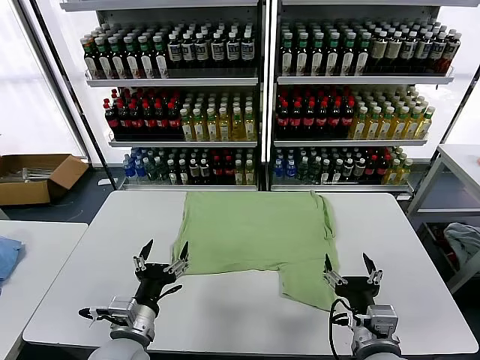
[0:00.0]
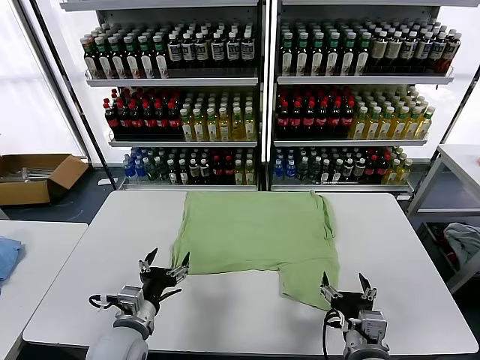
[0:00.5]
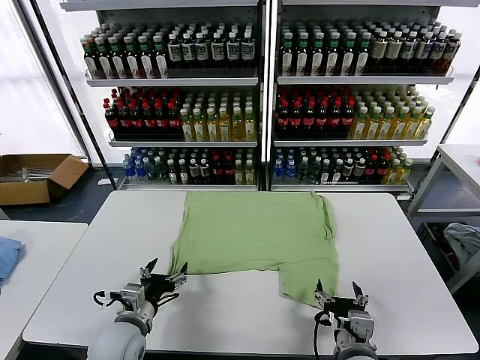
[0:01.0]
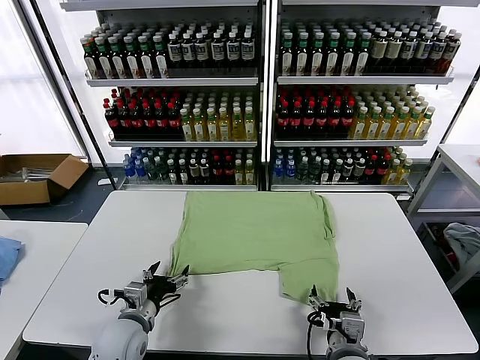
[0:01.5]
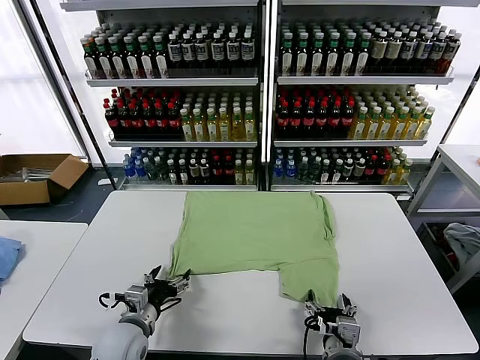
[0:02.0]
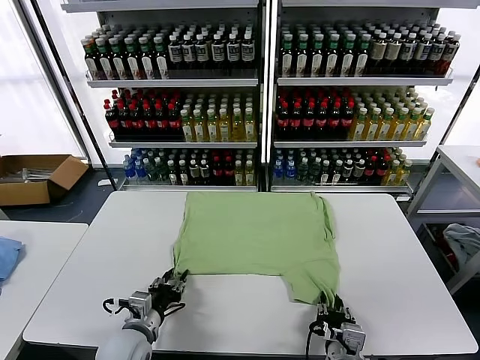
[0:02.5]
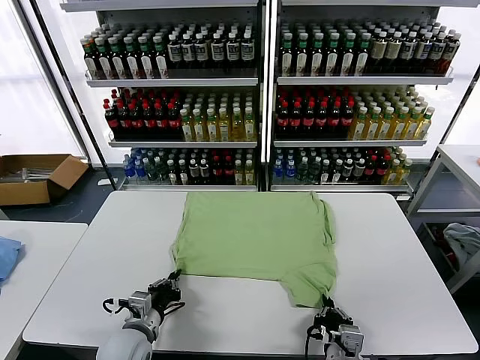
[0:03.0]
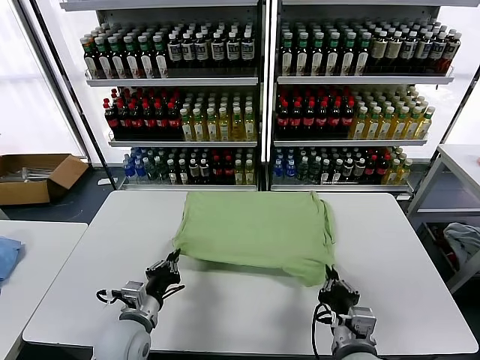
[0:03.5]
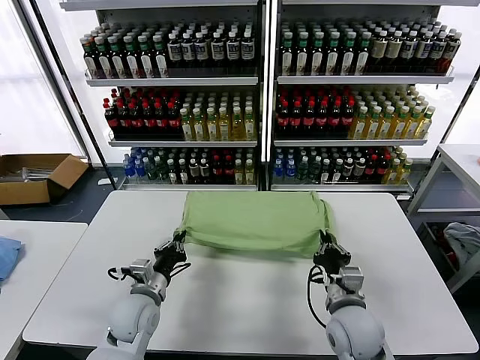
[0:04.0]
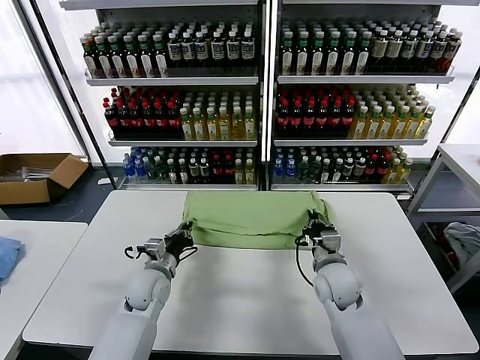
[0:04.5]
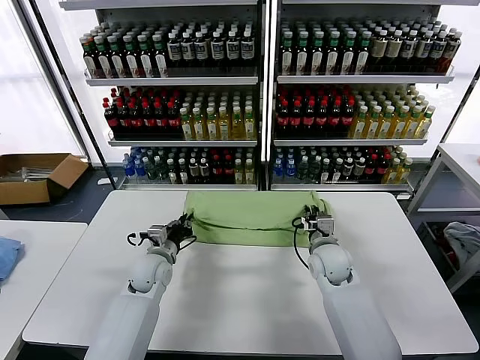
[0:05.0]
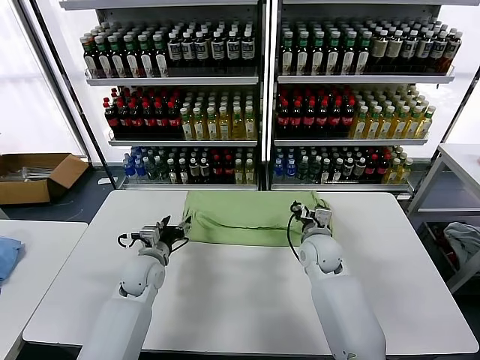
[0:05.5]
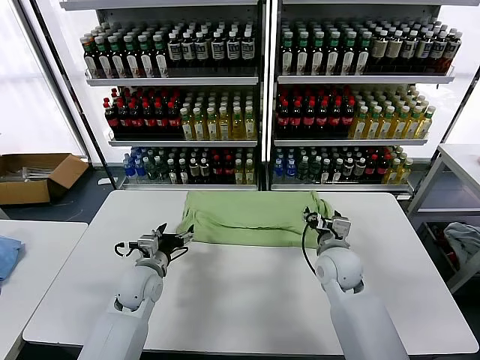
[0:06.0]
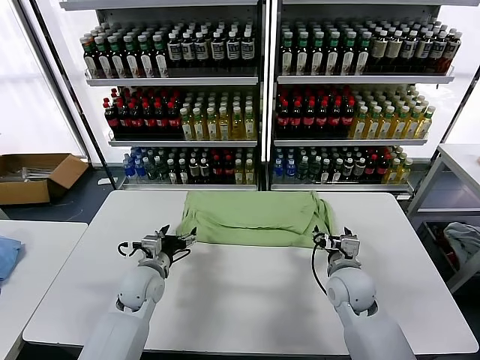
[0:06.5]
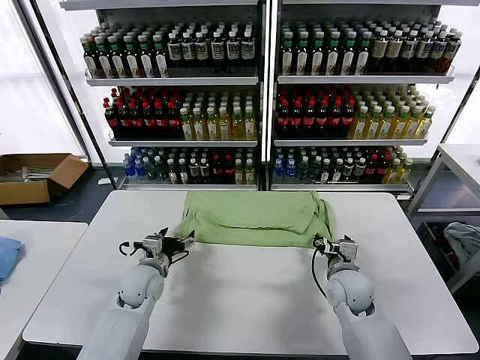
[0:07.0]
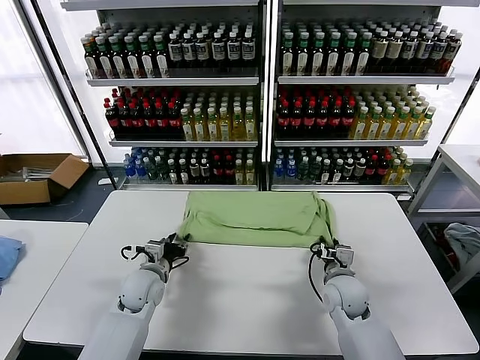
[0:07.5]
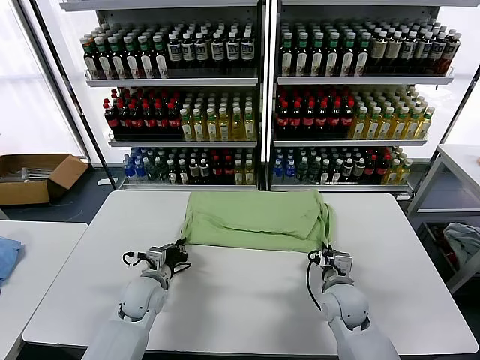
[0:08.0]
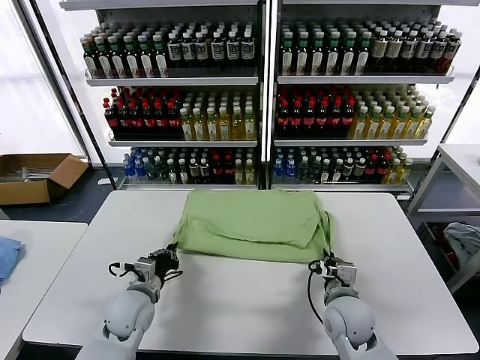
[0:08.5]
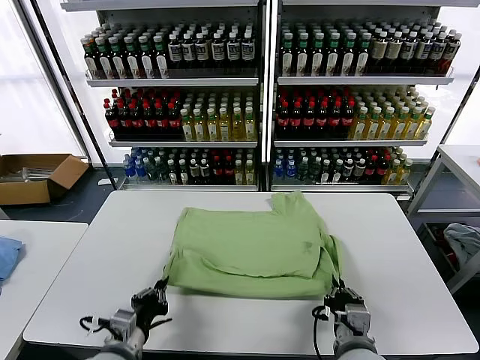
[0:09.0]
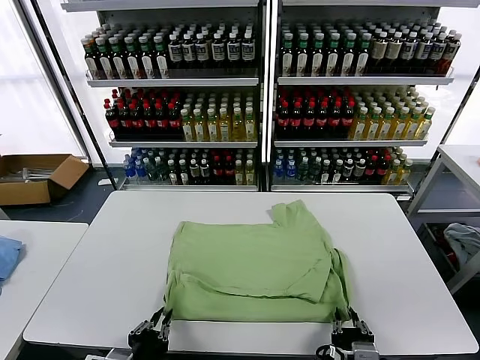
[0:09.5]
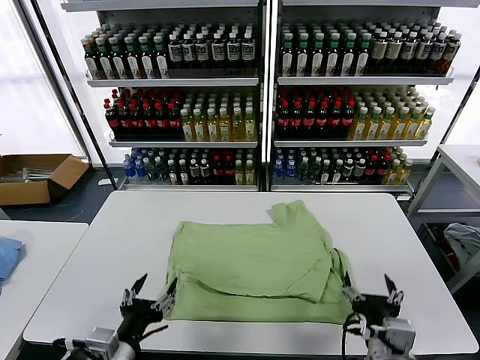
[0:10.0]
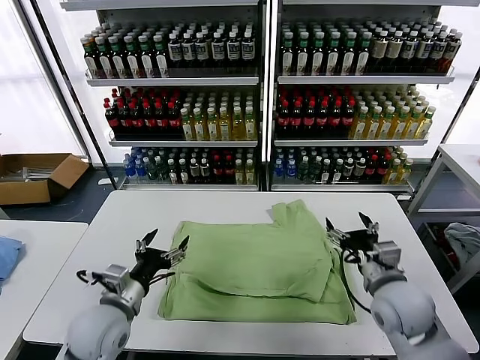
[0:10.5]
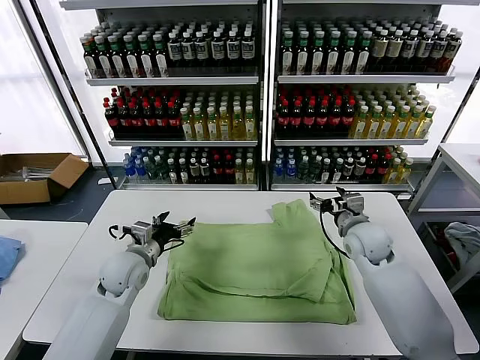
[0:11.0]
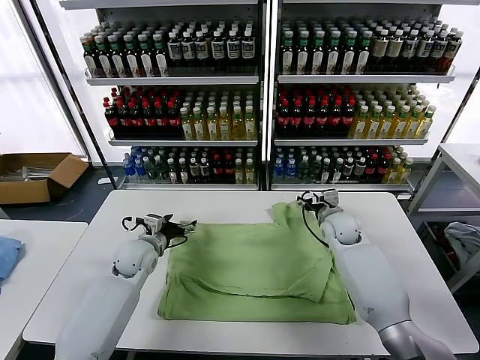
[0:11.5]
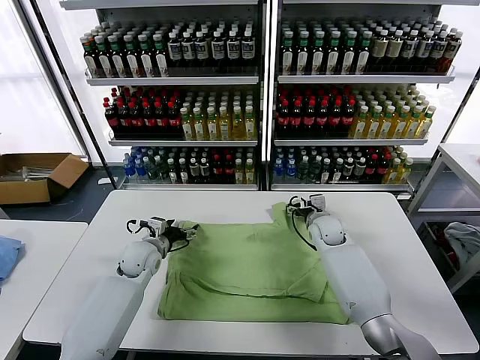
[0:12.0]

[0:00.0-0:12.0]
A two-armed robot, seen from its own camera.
Task of the whole recording: fold and organize the clothes.
Step, 0:00.0 to 0:02.5: use both grippers simultaneously to clamp the lower edge of the clothing fabric.
Step, 0:03.0 to 0:05.5: use both grippers to drag the lower edge of the fabric forward and fold it over the upper edge.
Step, 0:06.0 to 0:09.5: Drag the clothes downward with both gripper.
0:02.0 to 0:04.0: The right gripper heads forward, covering about 10 cm, and closes its fingers. The left gripper shifts some 5 cm forward, and closes its fingers.
0:04.0 to 0:06.0: The two grippers go roughly 5 cm forward. The right gripper opens up. Meanwhile the left gripper opens up.
0:06.0 to 0:08.0: The left gripper closes. Meanwhile the right gripper goes roughly 5 cm downward, and closes up.
0:08.0 to 0:10.0: Both grippers travel together backward and upward, roughly 25 cm. The left gripper opens up; the right gripper opens.
0:10.0 to 0:12.0: Both grippers move forward, roughly 35 cm.

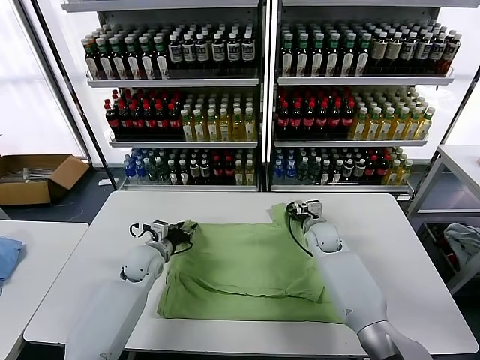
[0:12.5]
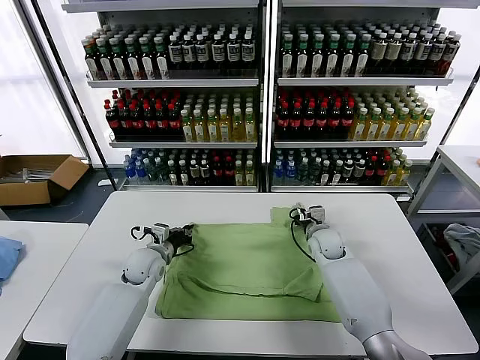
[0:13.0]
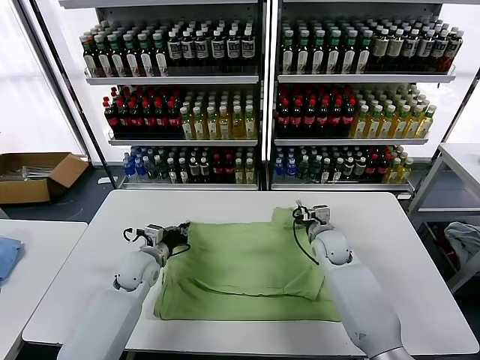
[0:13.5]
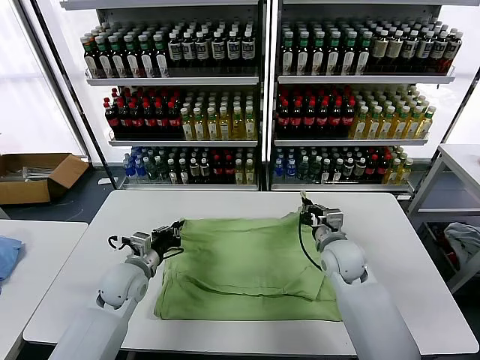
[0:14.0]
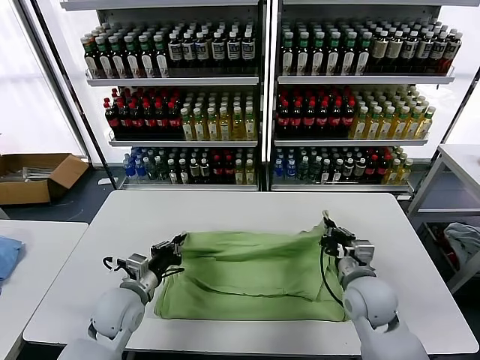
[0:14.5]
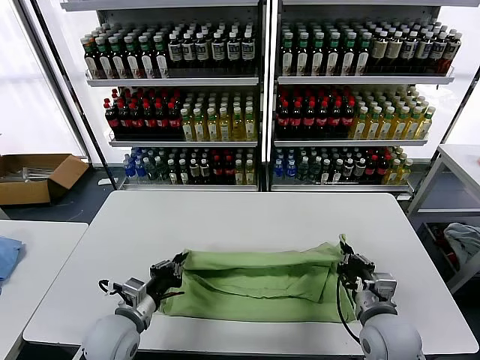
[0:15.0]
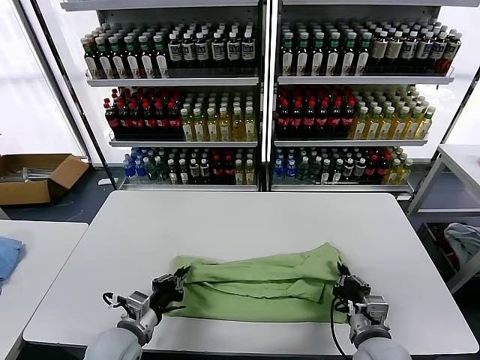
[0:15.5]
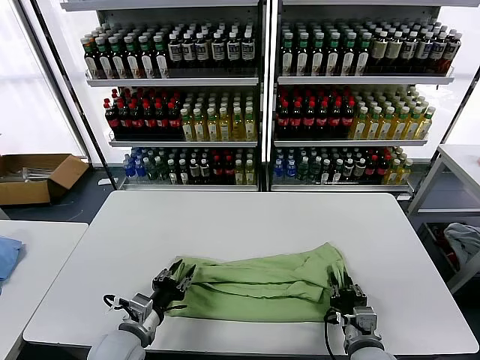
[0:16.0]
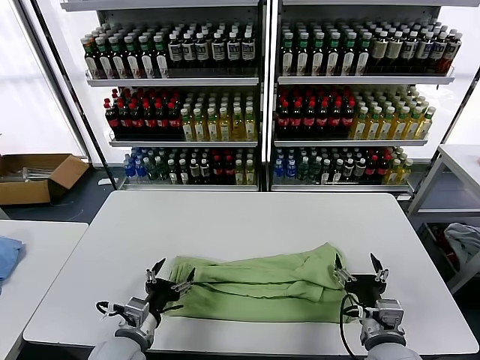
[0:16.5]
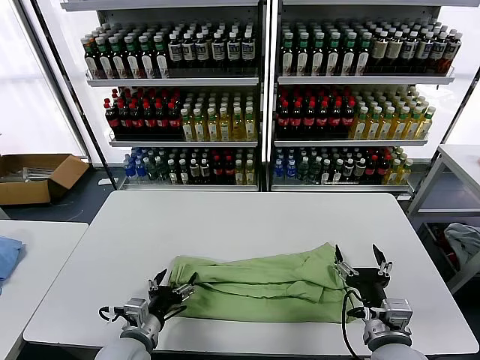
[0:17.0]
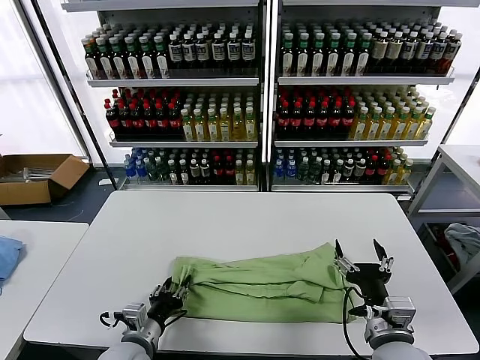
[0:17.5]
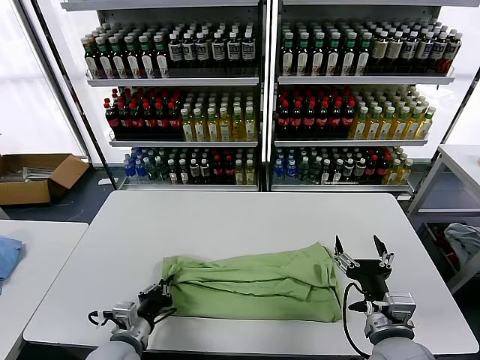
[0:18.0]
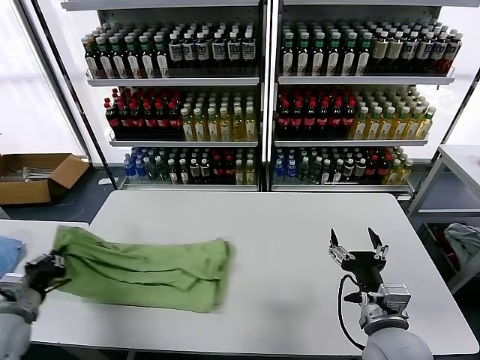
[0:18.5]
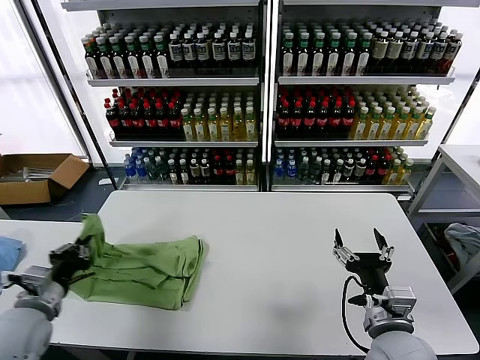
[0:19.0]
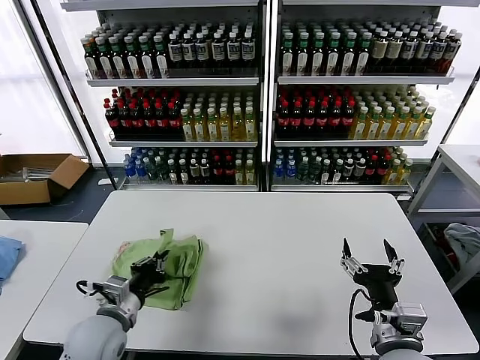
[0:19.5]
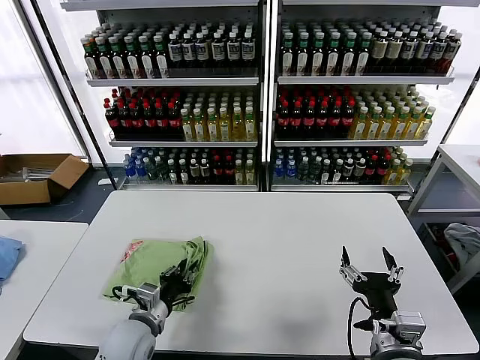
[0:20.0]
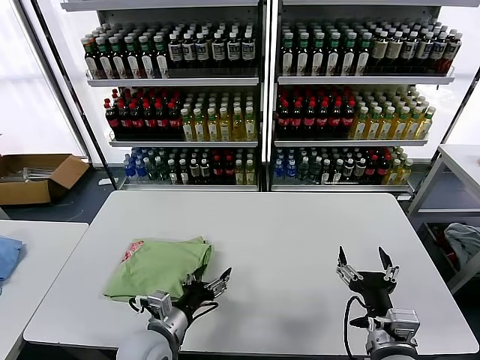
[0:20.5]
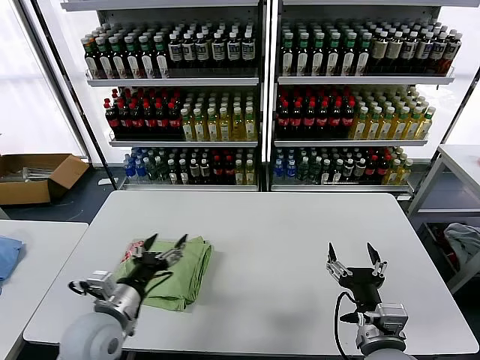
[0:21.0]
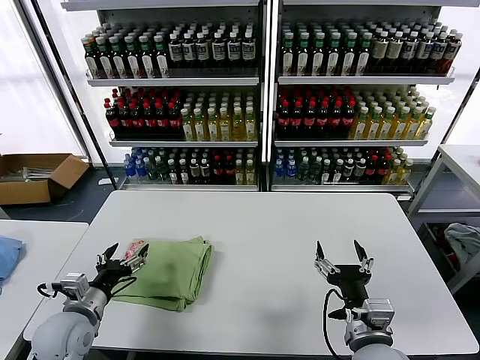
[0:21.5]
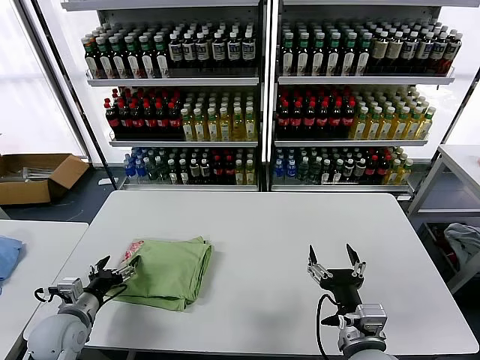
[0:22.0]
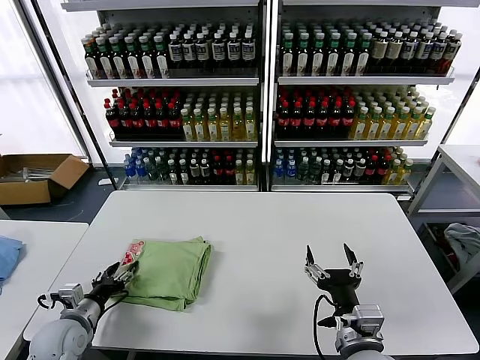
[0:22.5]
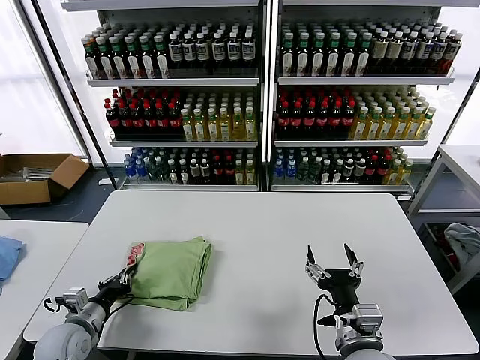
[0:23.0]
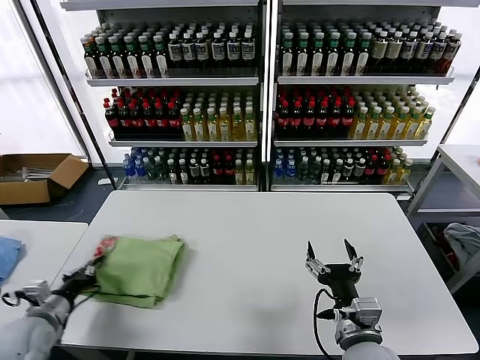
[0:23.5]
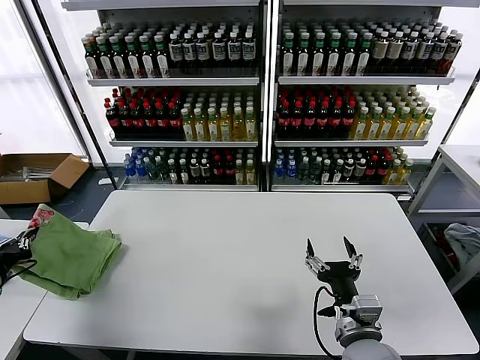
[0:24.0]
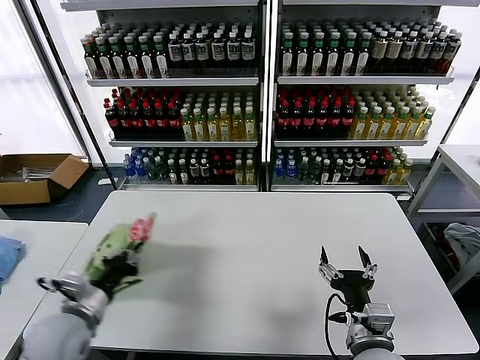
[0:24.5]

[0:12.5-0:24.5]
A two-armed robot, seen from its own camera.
Task of the whole recording: fold and organize the clothes.
Step, 0:13.5 to 0:16.0: use both grippers to drag the upper edge of the fabric backward and fold it over the lower edge.
Step, 0:16.5 to 0:17.5: use the left gripper to clamp the left edge of the fabric.
Step, 0:18.0 to 0:20.5: use the left gripper to drag the left edge of the fabric to the left and folds it over the right edge.
0:12.5 to 0:14.5: The left gripper heads backward, covering some 15 cm, and closes. The right gripper is displaced backward by about 20 cm, and closes.
0:14.5 to 0:16.5: The two grippers go roughly 10 cm backward. The right gripper opens up. The left gripper opens.
0:16.5 to 0:18.5: The left gripper shifts approximately 20 cm to the left, and closes up.
0:18.5 to 0:20.5: The left gripper heads to the right, covering roughly 25 cm, and opens its fingers.
0:20.5 to 0:22.5: The left gripper is displaced to the left by approximately 20 cm.
0:22.5 to 0:24.5: The left gripper is displaced upward by some 10 cm, moves approximately 15 cm to the left and comes back, and closes its fingers.

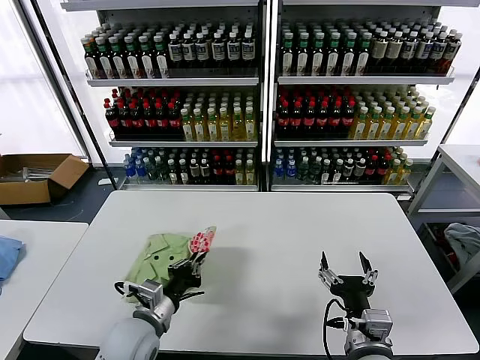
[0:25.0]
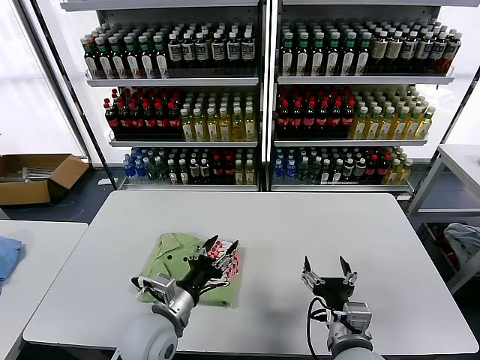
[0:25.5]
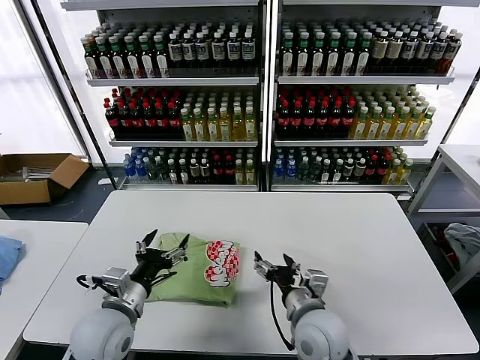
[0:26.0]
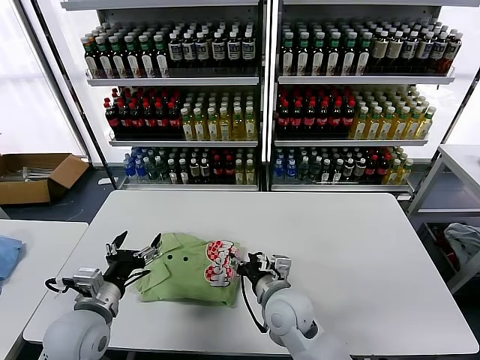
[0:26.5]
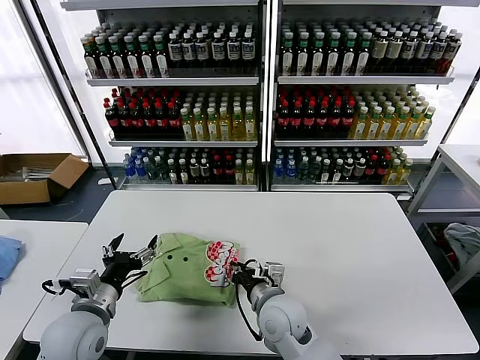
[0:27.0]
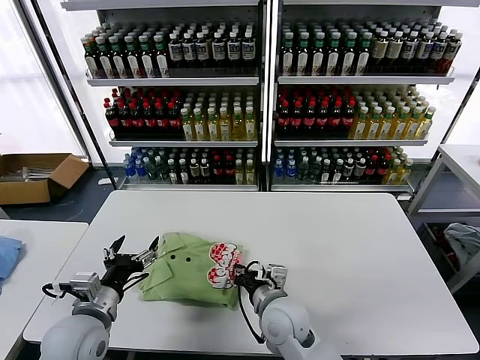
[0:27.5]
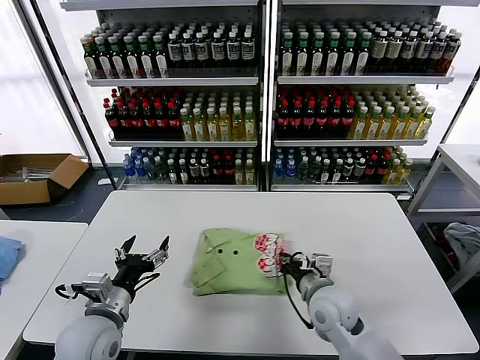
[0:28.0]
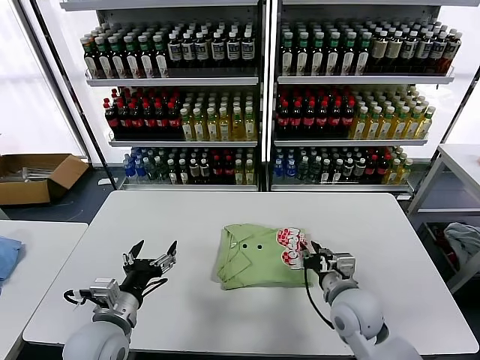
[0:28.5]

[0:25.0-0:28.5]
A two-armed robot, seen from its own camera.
Task of the whole recording: fold and organize the clothes.
0:25.0 to 0:27.0: The right gripper goes some 20 cm to the left and forward, and closes up, while the left gripper heads to the left, covering about 10 cm, and opens up.
0:27.0 to 0:28.5: The right gripper heads to the right, covering about 15 cm.
